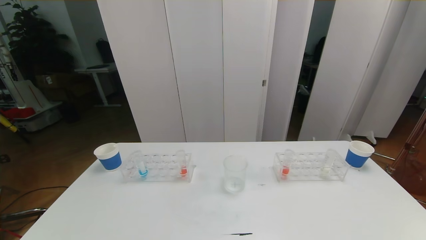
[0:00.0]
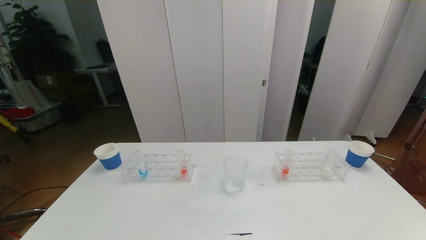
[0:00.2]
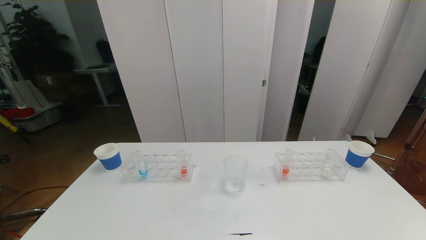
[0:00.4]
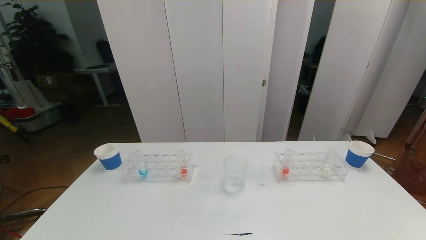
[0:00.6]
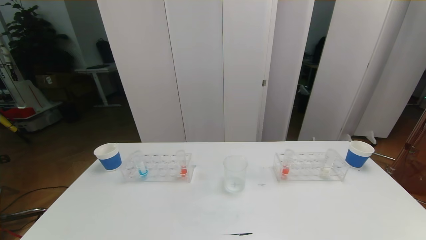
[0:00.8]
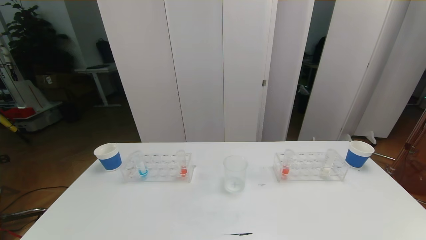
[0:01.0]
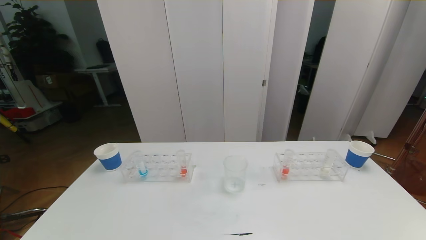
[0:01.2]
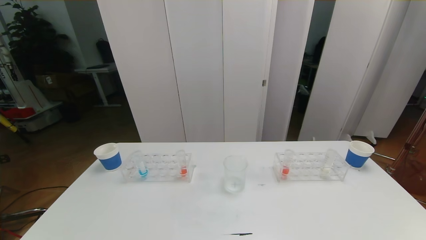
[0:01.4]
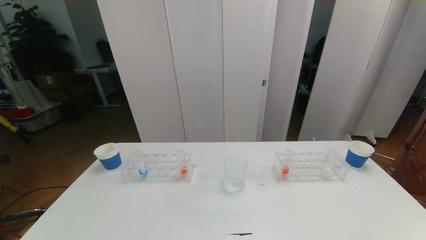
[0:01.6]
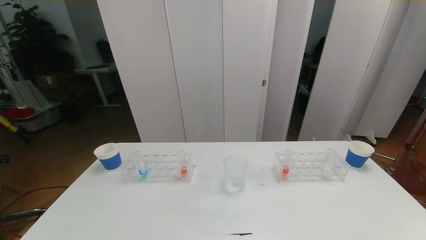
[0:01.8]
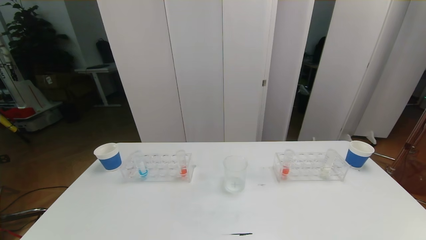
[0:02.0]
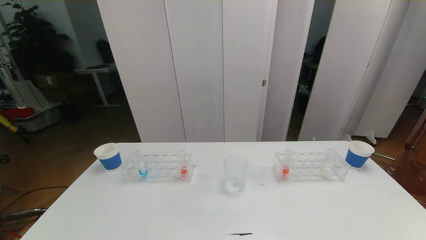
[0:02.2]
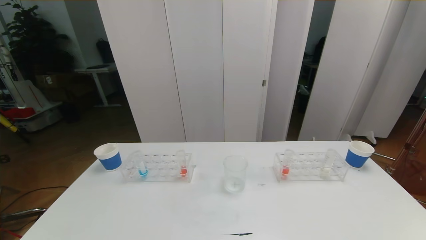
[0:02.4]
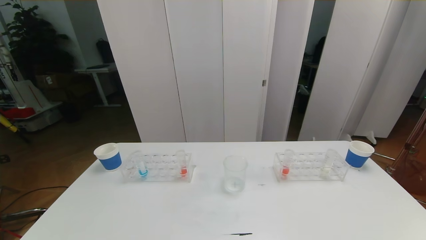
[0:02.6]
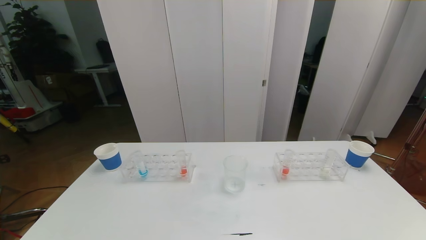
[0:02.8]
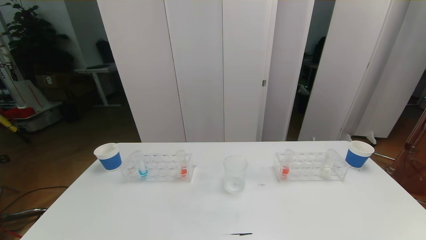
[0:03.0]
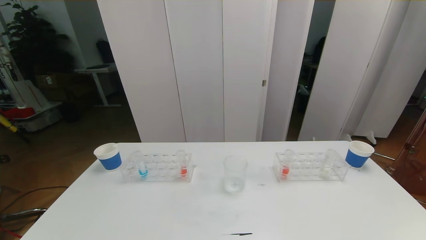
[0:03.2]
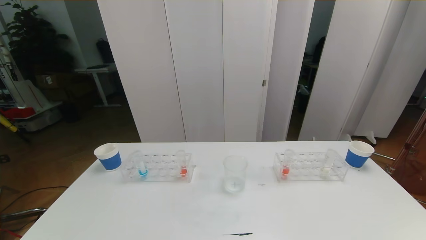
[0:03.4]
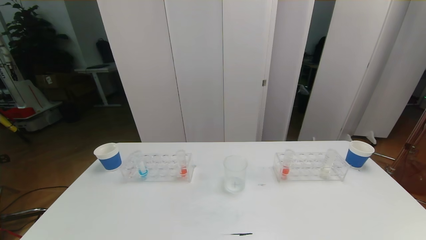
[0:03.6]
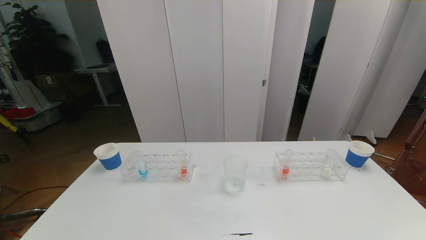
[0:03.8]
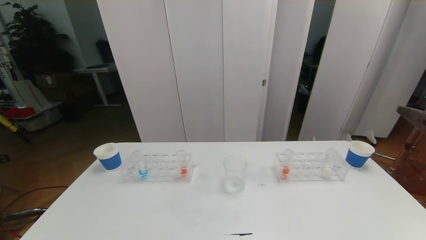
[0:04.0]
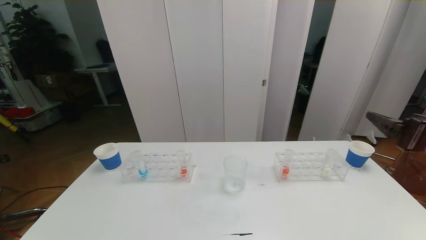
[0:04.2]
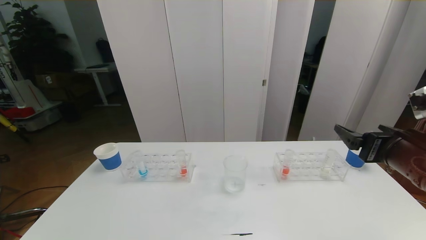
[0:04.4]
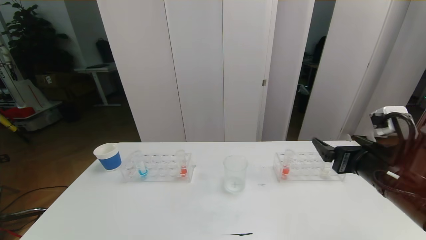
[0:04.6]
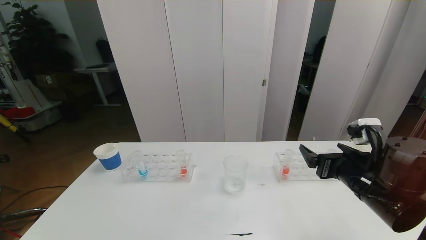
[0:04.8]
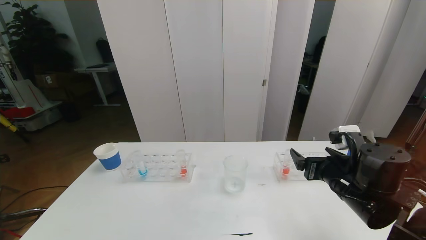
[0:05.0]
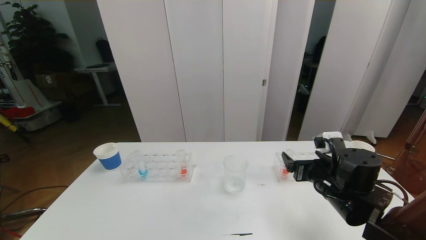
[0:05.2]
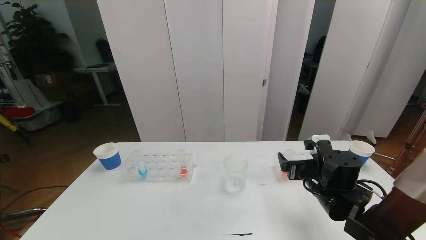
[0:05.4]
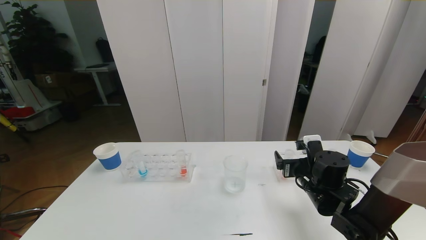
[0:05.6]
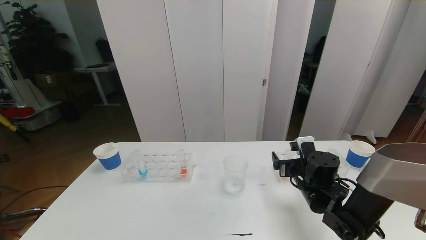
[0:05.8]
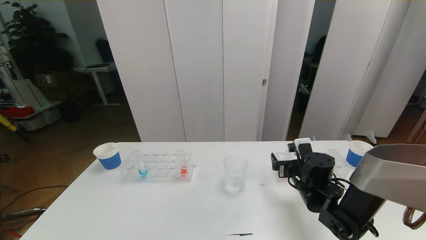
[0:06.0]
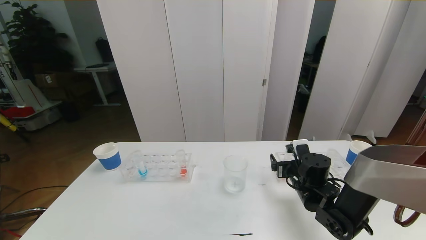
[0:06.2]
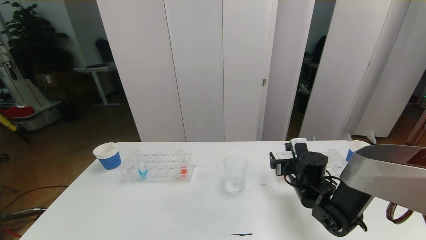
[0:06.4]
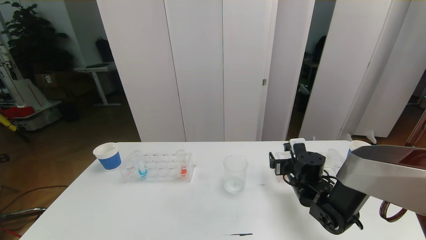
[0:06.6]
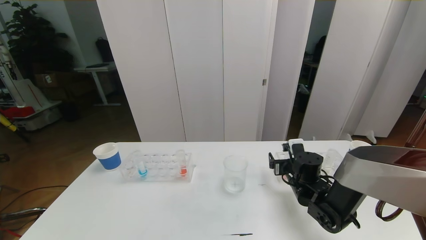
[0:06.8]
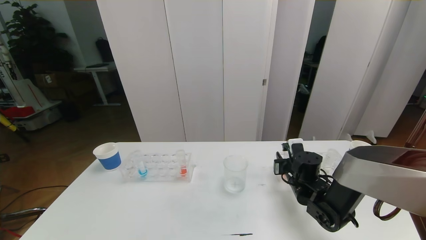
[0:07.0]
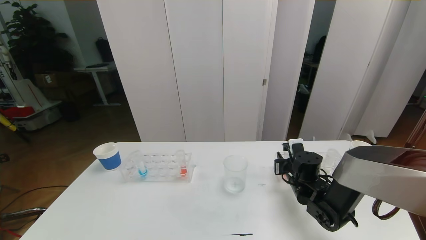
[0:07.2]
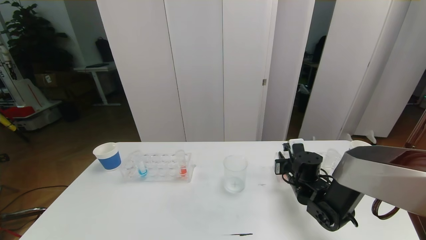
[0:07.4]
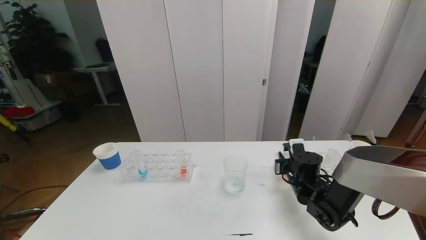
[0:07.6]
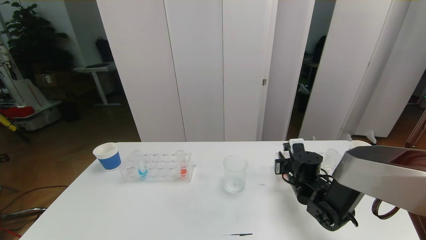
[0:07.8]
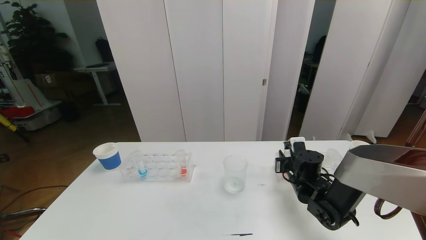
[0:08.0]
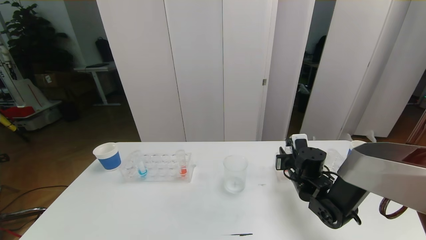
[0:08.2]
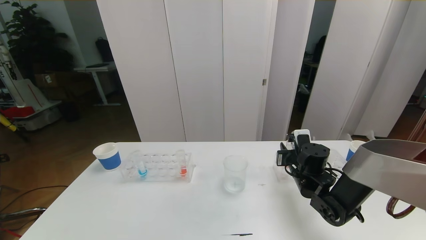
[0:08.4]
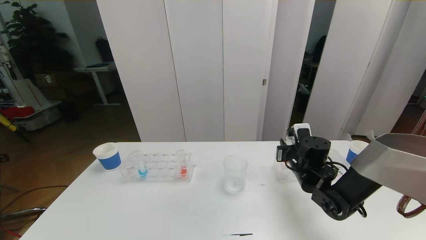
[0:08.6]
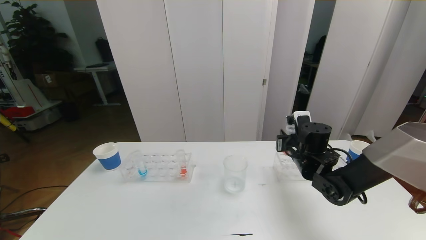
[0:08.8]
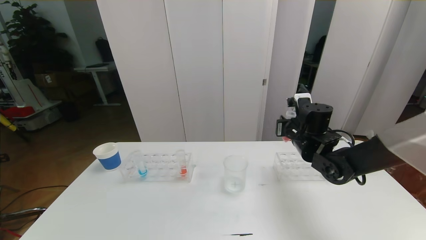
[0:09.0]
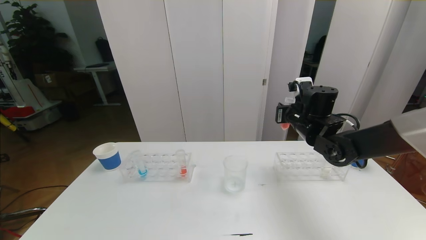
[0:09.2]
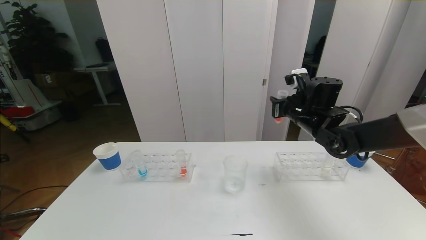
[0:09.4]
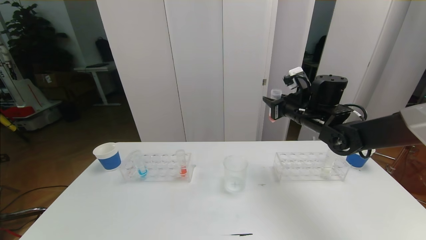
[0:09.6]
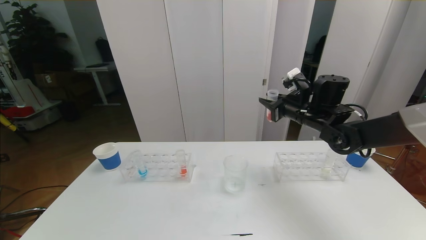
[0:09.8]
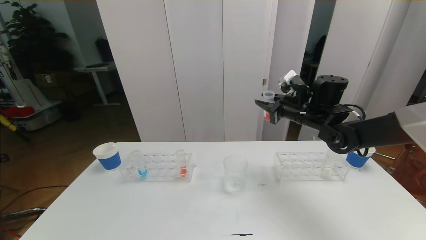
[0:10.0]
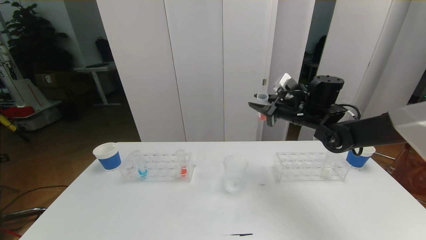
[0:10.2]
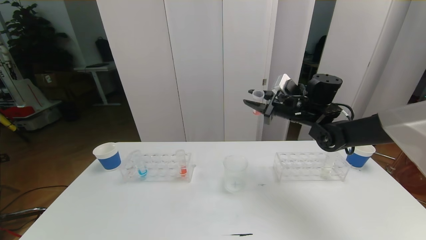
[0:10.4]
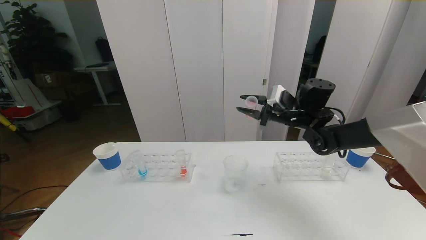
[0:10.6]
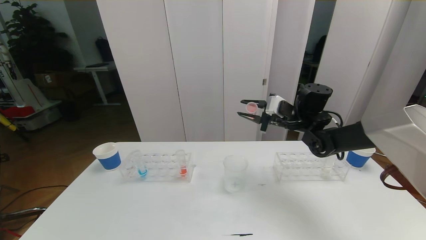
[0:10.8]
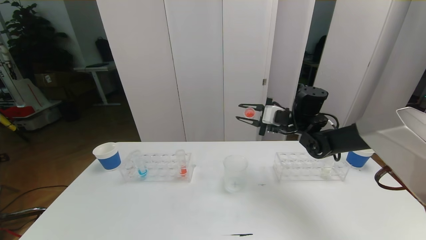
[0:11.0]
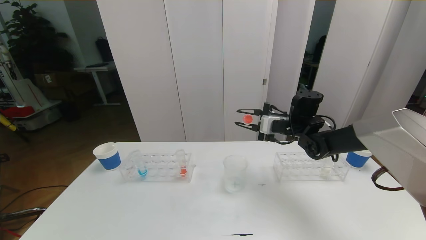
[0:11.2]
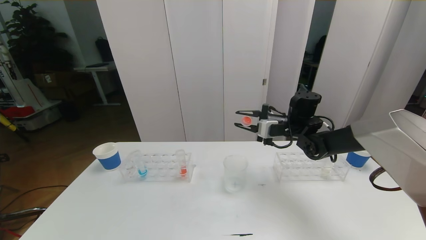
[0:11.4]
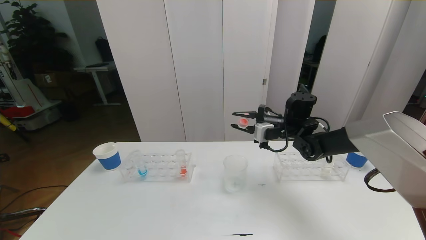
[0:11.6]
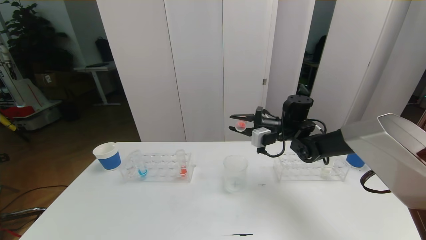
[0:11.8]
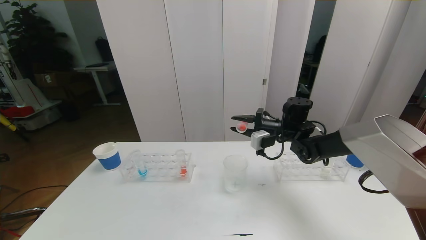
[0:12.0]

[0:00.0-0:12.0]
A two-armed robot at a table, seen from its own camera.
Task of the whole recording: pick up the test tube with red pigment the test tube with blue pigment and the test tube with white pigment by grippers and pour them into the beaker.
0:00.0 to 0:01.6: Neither gripper changes place.
0:03.0 to 0:04.4: The right gripper shifts some 25 cm forward.
0:04.4 to 0:06.0: The right gripper travels downward, forward and to the left by some 25 cm.
0:06.0 to 0:07.6: The right gripper closes up.
0:07.6 to 0:09.0: The right gripper is displaced upward by about 10 cm.
0:09.0 to 0:10.4: The right gripper shifts approximately 5 cm upward.
0:10.4 to 0:12.0: The right gripper shifts about 5 cm downward.

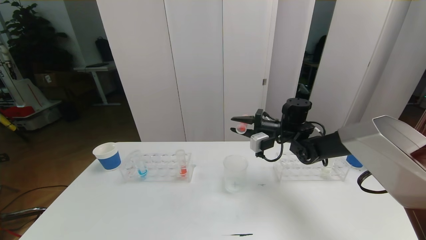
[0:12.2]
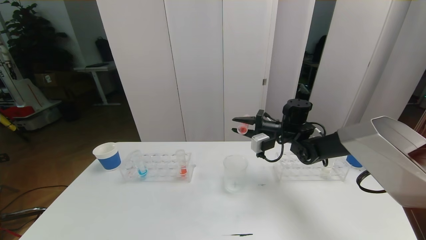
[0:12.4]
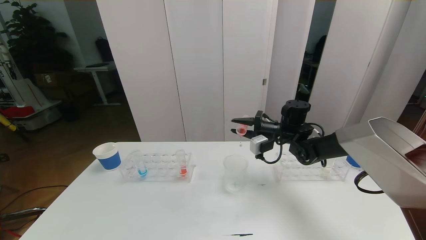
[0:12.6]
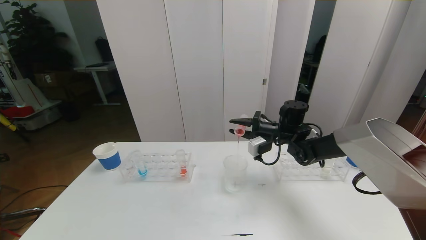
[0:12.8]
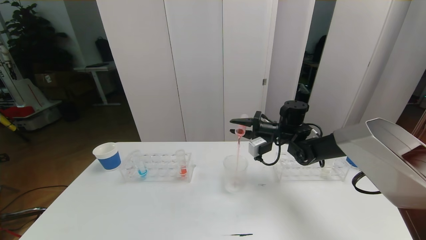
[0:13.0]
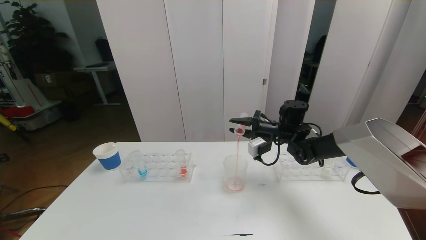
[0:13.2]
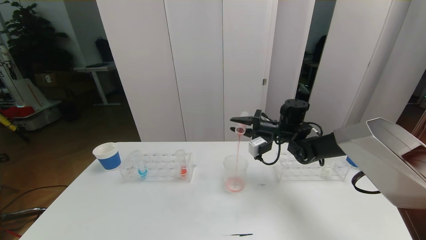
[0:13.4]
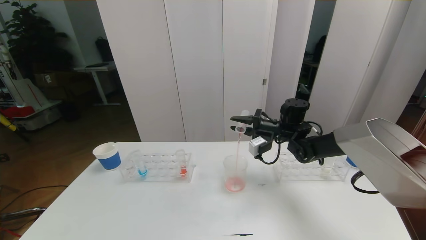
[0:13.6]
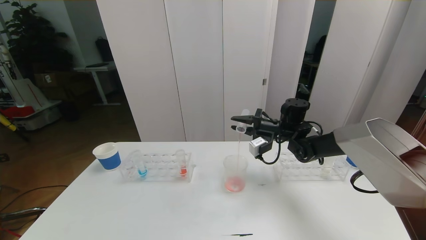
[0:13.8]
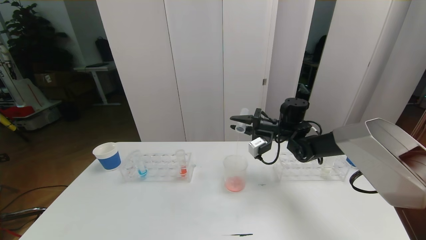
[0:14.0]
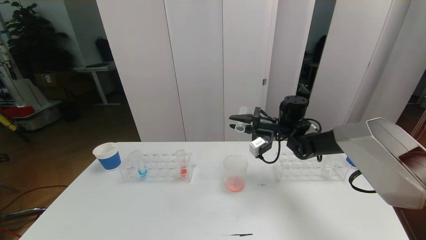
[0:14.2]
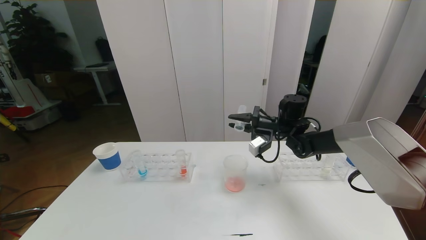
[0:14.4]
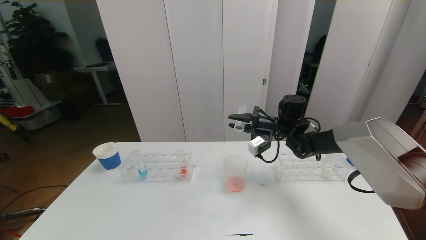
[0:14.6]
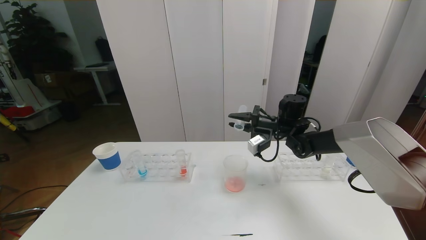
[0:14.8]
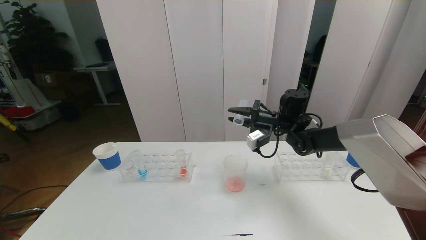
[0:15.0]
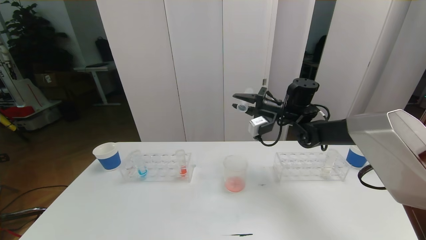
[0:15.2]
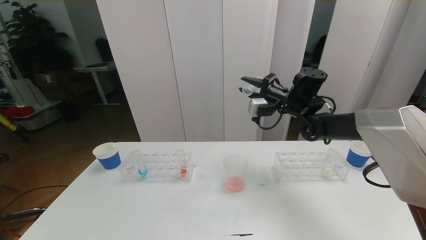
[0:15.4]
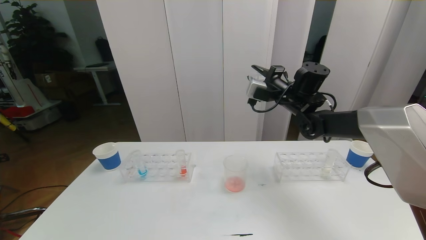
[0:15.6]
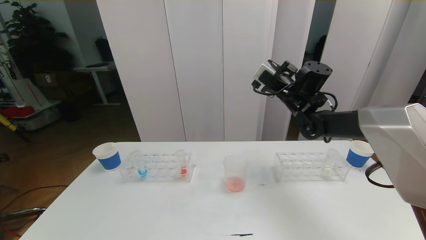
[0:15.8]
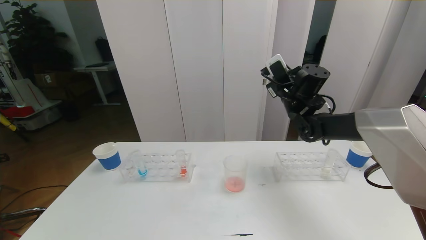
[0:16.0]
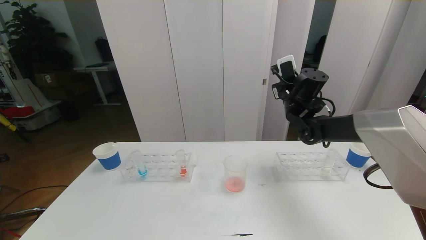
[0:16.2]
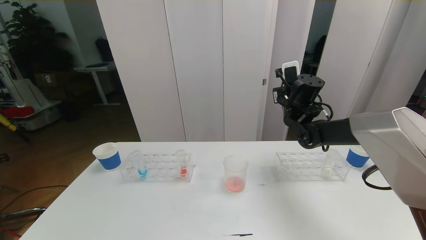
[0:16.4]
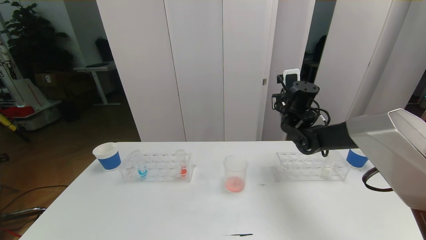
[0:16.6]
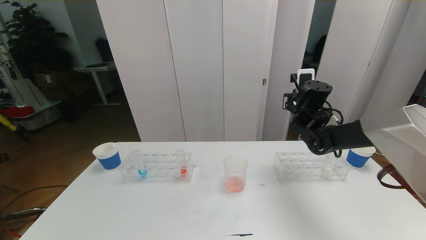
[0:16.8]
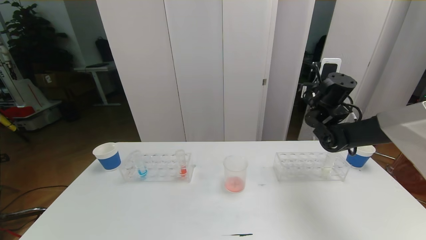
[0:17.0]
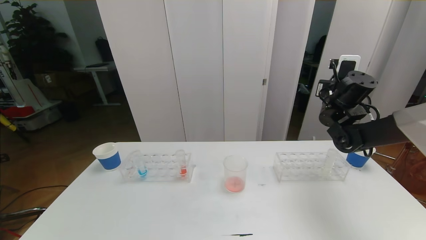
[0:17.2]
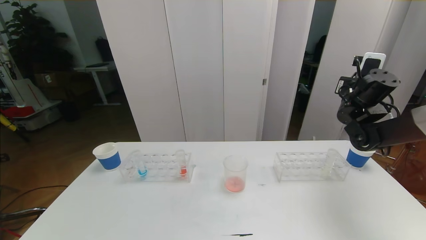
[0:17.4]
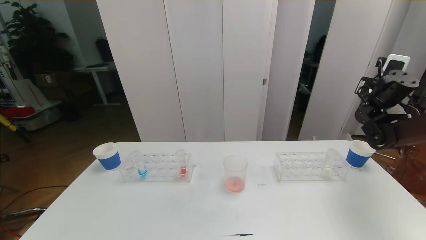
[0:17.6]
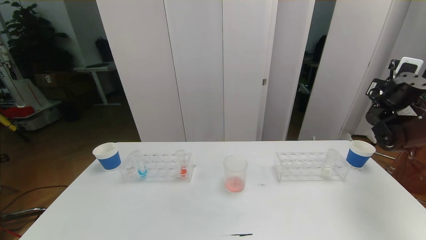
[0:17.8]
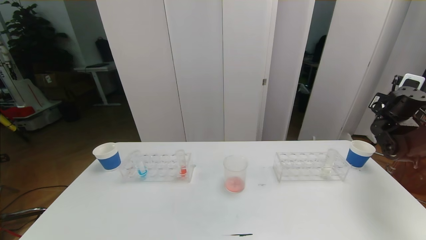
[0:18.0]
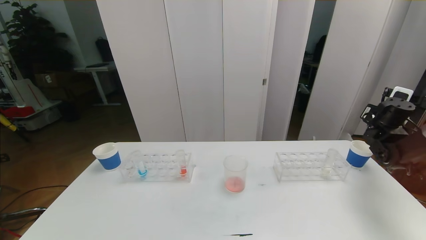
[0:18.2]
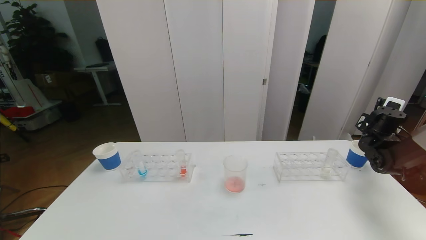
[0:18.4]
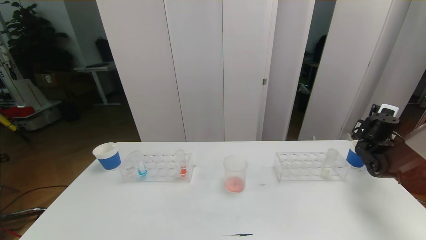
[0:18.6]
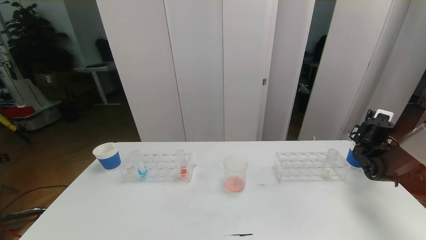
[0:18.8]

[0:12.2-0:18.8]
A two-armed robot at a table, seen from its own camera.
Task of the whole recording: pick up the test tube with red pigment the test tube with blue pigment and the test tube with white pigment by grippers and pour them into the beaker.
0:12.2 to 0:13.8: The grippers make only small movements.
0:13.8 to 0:15.4: The right gripper moves upward, about 10 cm.
0:15.4 to 0:17.2: The right gripper shifts about 10 cm to the right.
0:17.2 to 0:18.8: The right gripper goes about 20 cm to the right and downward.
